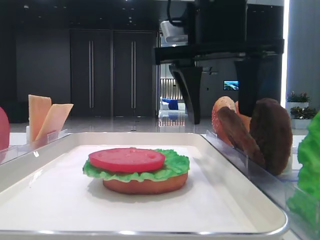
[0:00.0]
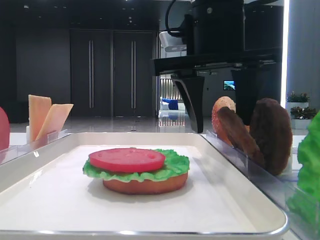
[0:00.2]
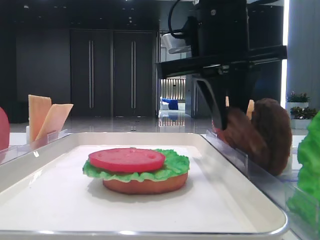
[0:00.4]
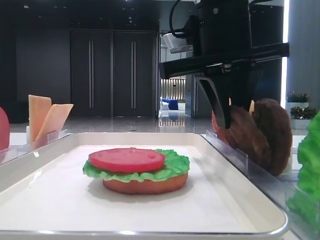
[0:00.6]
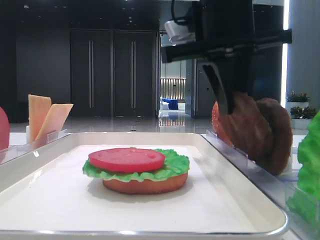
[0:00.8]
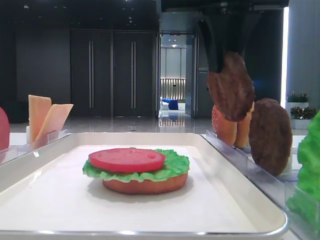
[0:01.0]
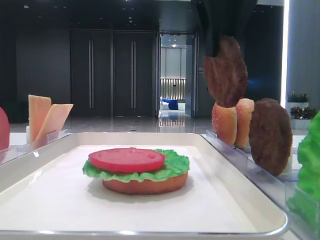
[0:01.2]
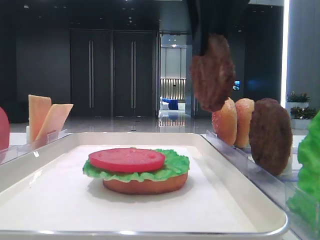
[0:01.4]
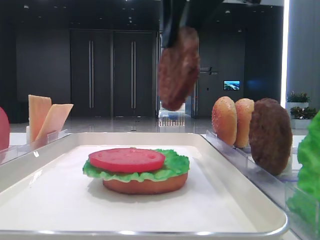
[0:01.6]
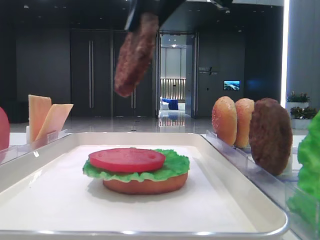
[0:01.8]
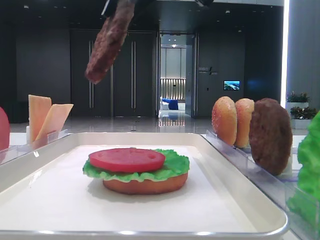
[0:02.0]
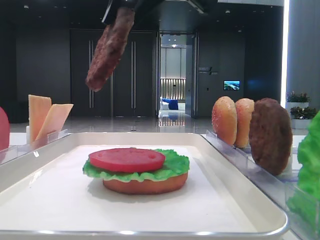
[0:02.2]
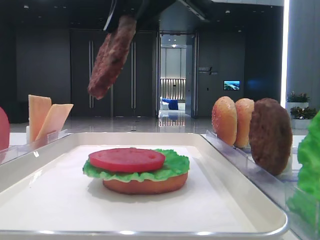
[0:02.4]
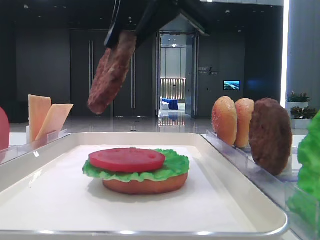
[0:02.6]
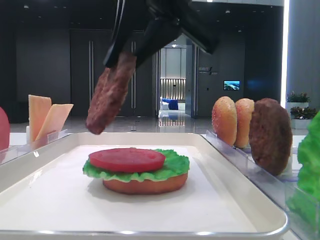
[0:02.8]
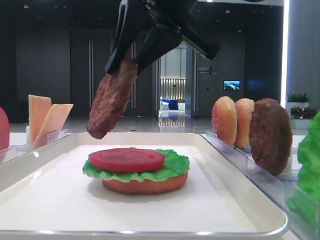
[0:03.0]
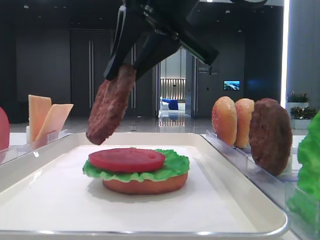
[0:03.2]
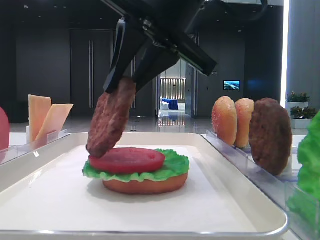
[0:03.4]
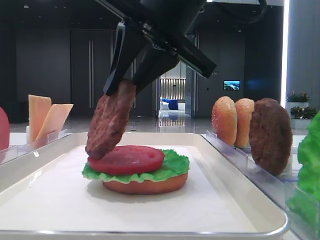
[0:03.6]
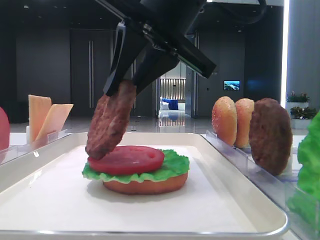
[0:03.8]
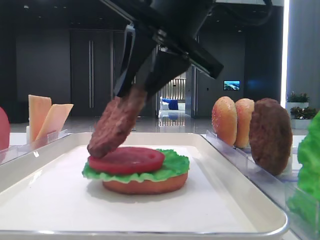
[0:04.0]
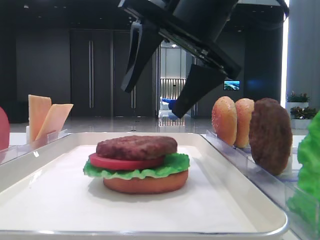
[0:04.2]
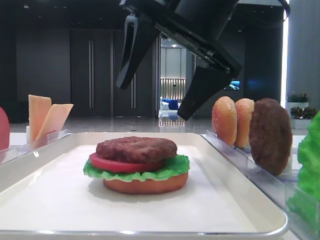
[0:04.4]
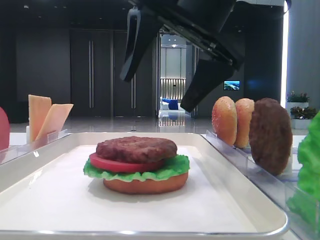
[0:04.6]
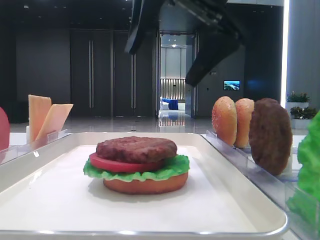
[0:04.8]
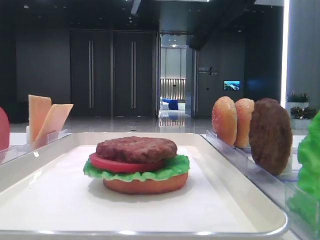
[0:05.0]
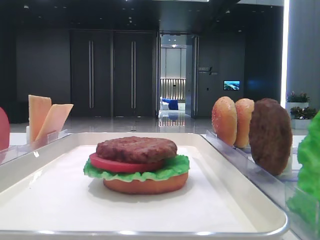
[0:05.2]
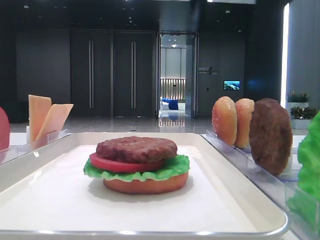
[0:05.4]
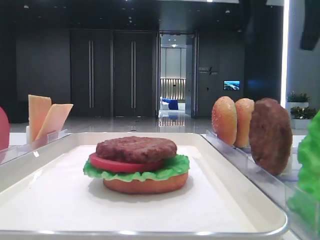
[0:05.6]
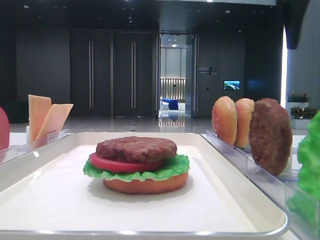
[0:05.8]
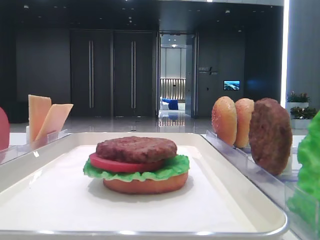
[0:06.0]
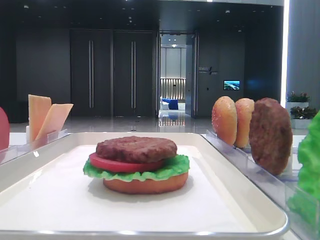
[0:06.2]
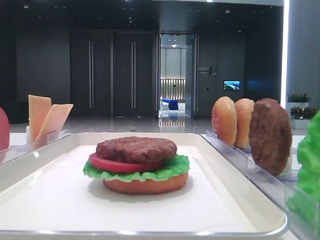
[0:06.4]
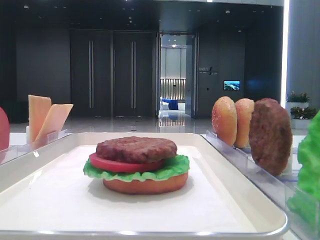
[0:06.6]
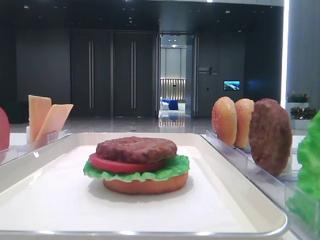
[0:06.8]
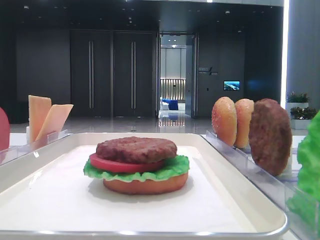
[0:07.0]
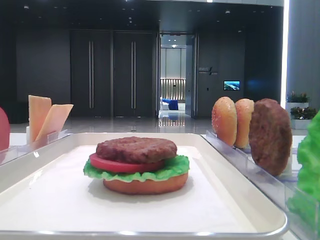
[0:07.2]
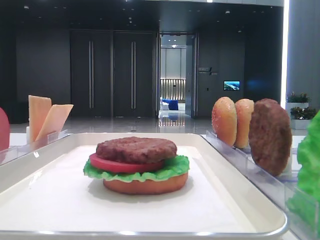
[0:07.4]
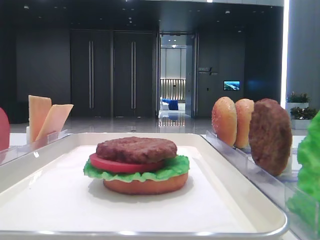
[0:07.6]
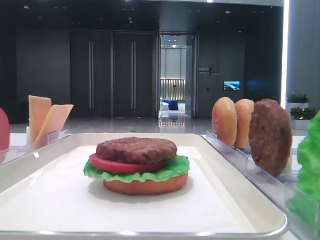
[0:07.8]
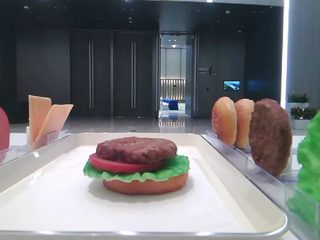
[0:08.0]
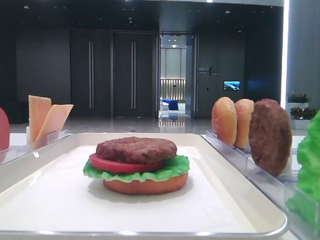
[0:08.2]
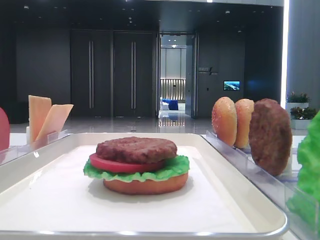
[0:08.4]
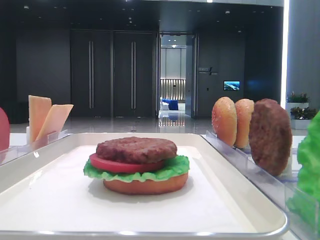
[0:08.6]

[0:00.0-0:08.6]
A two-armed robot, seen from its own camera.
Step, 0:00.6 to 0:04.2: Place the patty on the tomato slice with the right hand.
0:00.0 to 0:01.4: The right gripper travels upward by approximately 5 cm, and closes its fingers.
0:01.4 to 0:02.8: The right gripper ends up some 5 cm from where it was.
0:02.8 to 0:04.4: The right gripper ends up approximately 5 cm from where it was, and opens up.
0:04.4 to 0:05.8: The right gripper is displaced to the right and upward by about 20 cm.
0:05.8 to 0:07.2: The right gripper shifts about 30 cm backward.

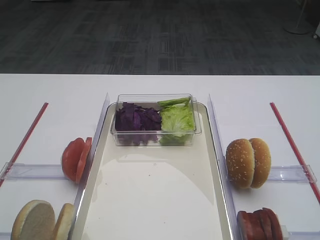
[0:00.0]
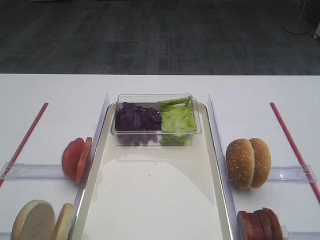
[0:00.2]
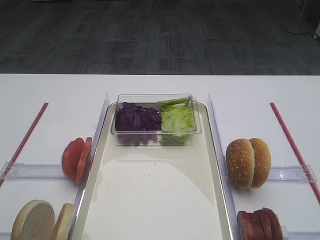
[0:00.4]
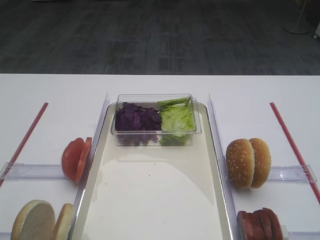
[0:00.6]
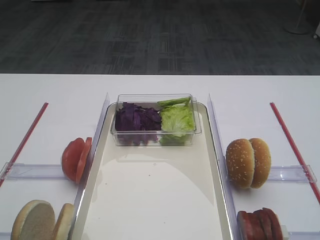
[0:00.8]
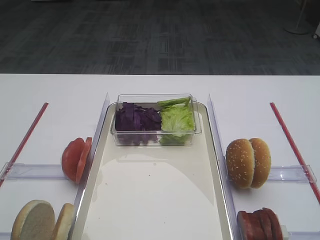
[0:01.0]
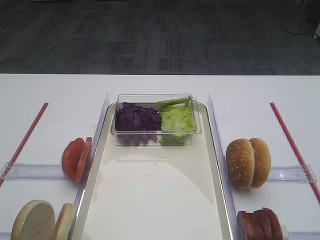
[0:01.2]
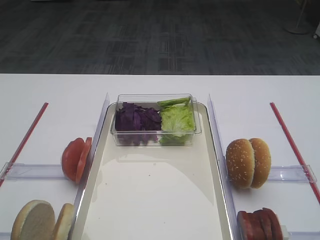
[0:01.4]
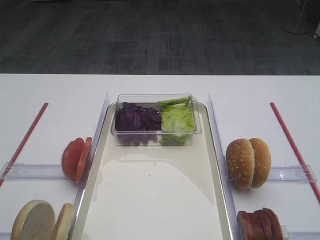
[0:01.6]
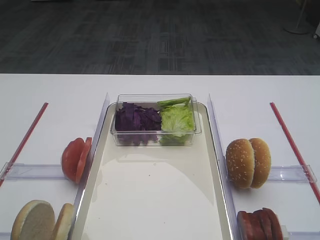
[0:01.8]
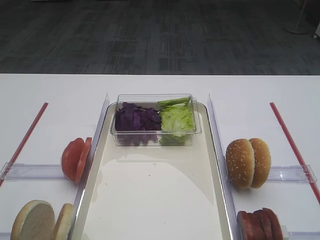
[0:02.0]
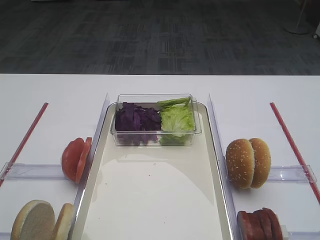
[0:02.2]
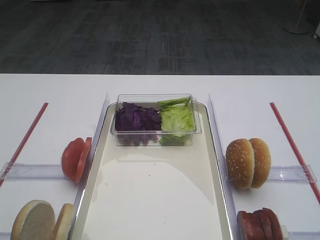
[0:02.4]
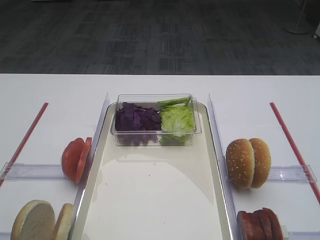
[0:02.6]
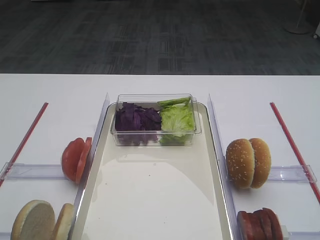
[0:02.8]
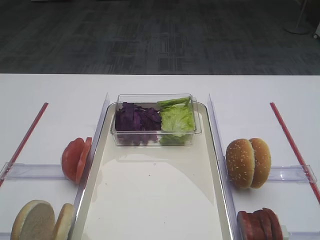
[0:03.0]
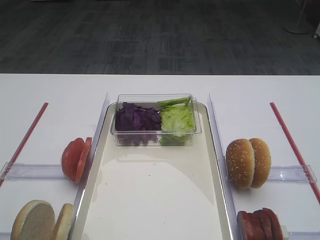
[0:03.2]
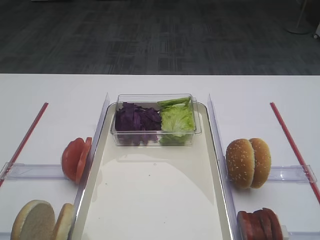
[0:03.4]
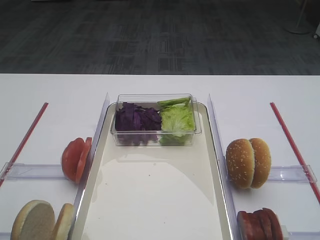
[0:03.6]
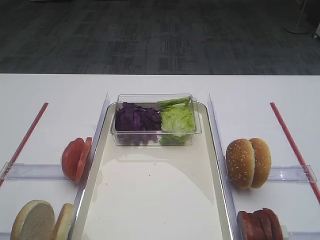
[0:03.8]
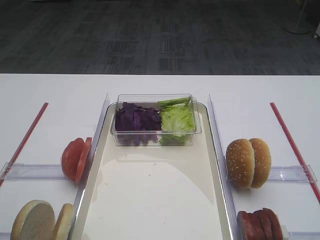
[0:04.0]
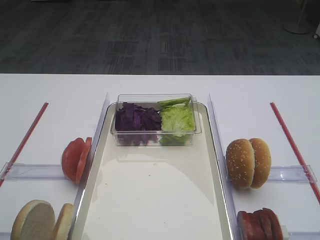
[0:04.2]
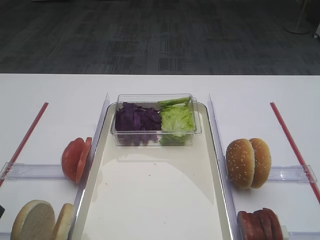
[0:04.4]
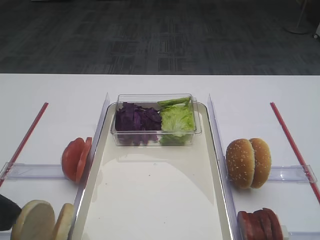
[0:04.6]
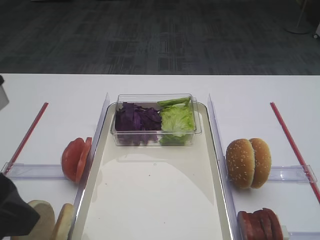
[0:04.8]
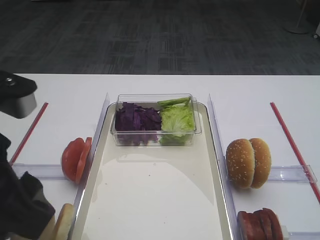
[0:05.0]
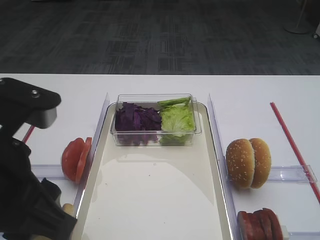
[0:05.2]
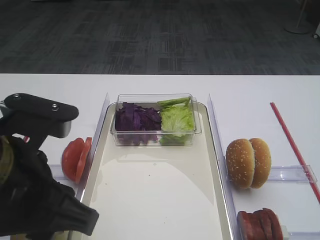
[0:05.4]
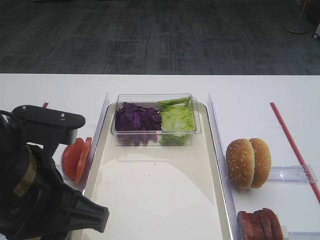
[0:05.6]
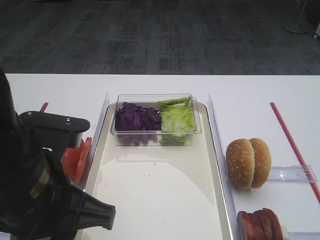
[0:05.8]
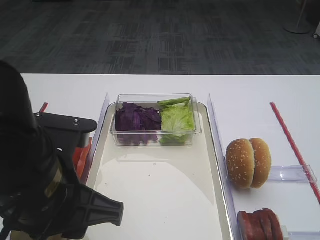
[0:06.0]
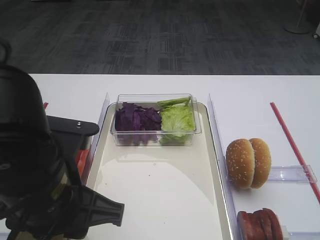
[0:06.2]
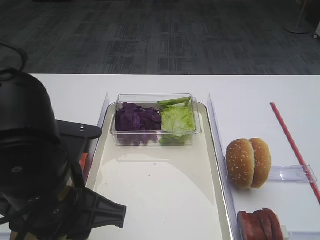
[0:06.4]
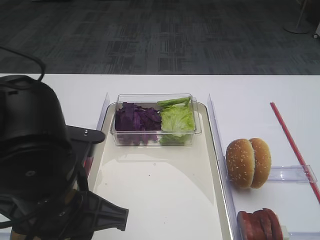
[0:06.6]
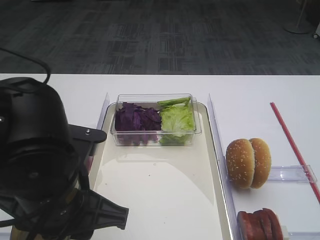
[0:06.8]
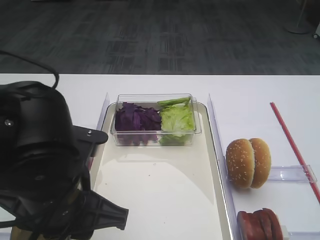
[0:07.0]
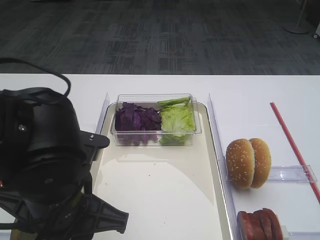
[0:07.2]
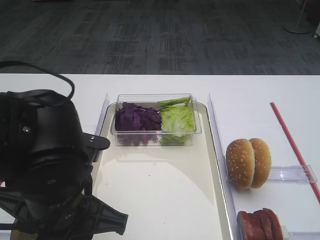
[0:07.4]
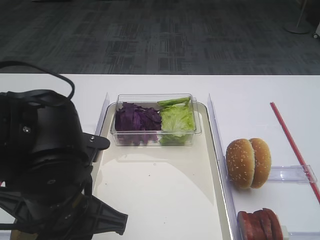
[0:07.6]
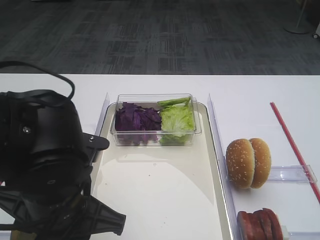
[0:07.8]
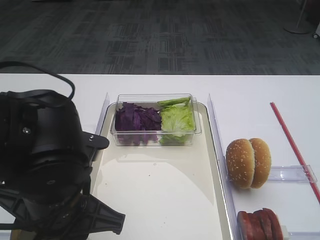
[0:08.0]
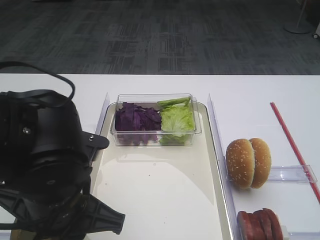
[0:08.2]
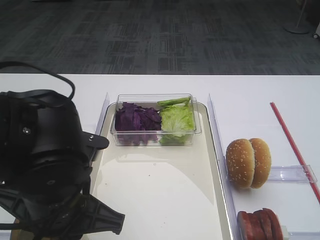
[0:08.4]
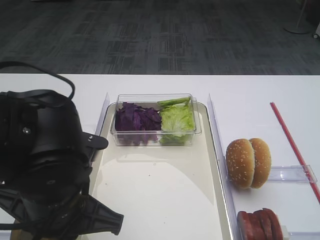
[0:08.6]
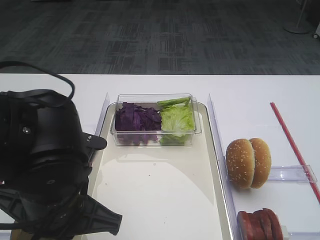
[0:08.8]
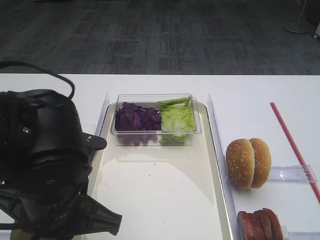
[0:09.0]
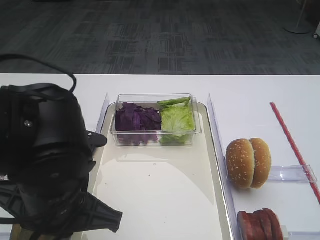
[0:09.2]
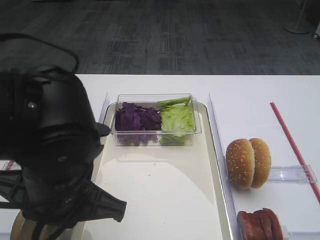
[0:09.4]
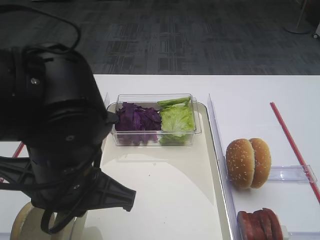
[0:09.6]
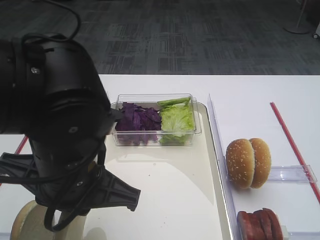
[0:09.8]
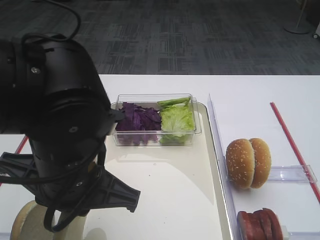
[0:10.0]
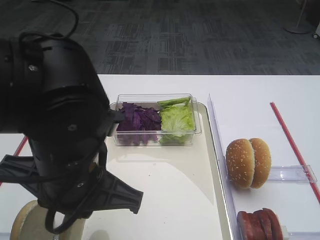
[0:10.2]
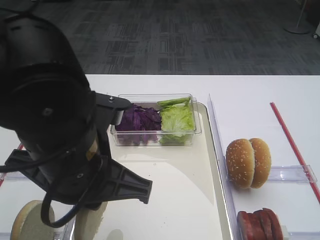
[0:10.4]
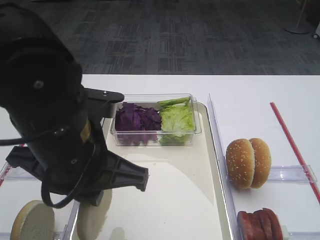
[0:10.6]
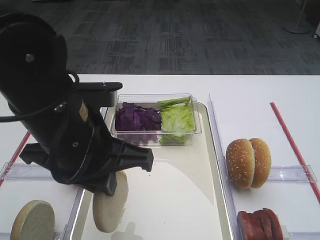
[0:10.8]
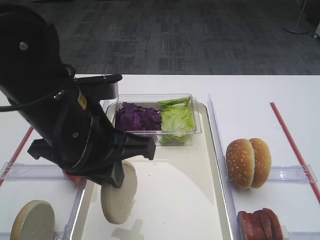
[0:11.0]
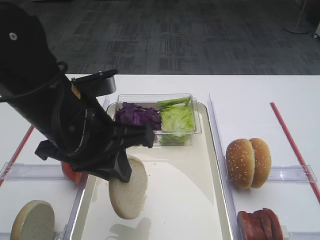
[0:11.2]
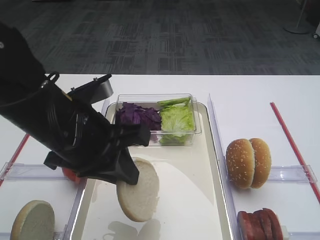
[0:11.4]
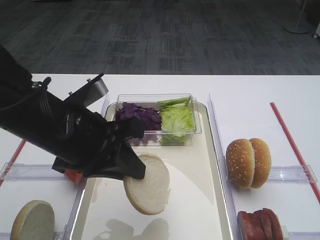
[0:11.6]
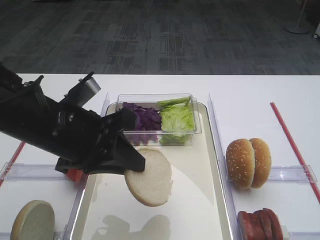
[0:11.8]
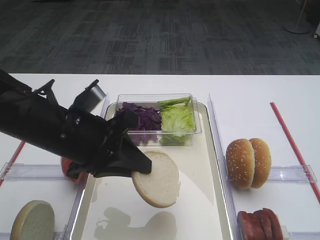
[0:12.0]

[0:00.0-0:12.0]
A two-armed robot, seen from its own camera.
Step, 0:00.0 to 0:09.8: Pick up the bread slice with the left gripper.
0:04.4 to 0:06.0: The left gripper is displaced to the right, downward and forward by about 15 cm.
0:06.0 to 0:07.6: The grippers make only small movements.
0:07.6 to 0:09.0: The left gripper closes its fingers.
0:09.0 to 0:10.4: The left gripper moves upward, approximately 5 cm.
0:10.4 to 0:12.0: The left gripper heads forward, covering some 5 cm.

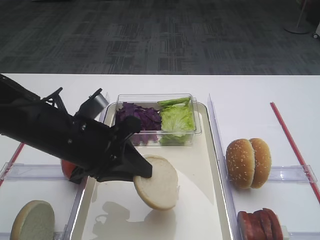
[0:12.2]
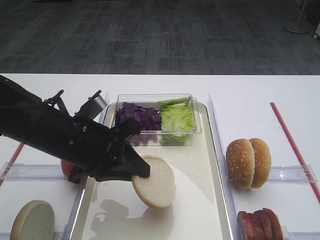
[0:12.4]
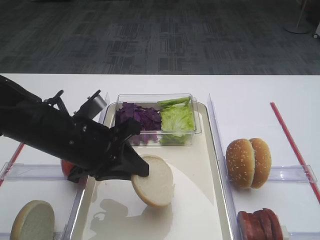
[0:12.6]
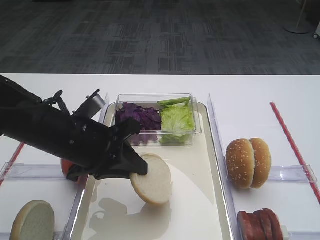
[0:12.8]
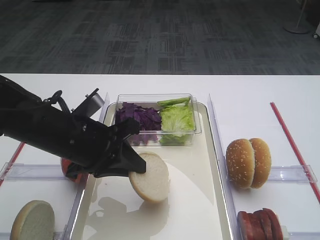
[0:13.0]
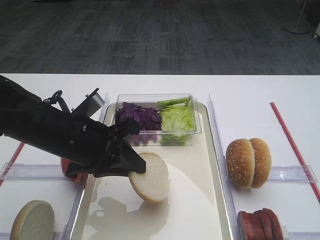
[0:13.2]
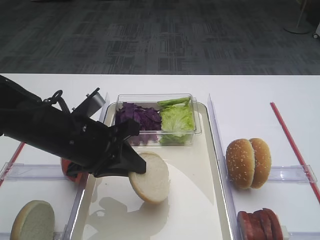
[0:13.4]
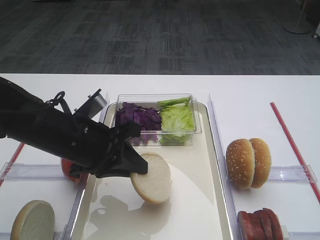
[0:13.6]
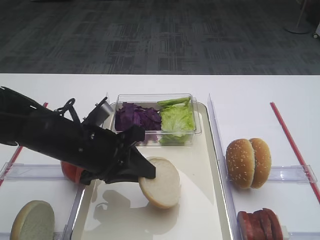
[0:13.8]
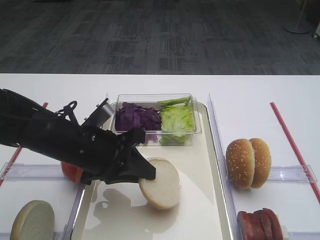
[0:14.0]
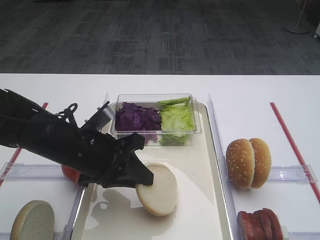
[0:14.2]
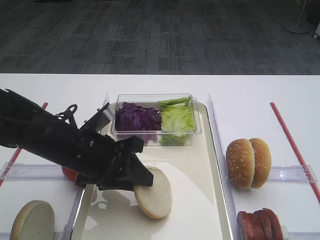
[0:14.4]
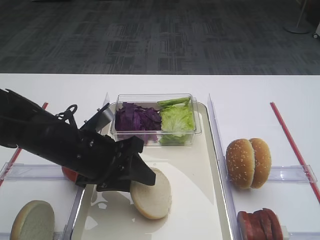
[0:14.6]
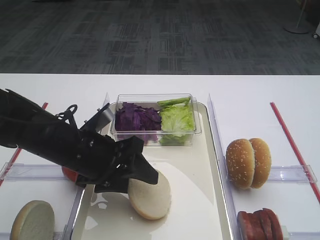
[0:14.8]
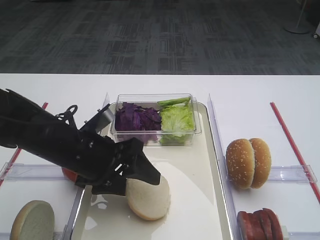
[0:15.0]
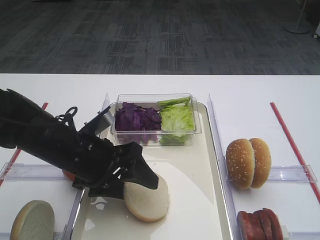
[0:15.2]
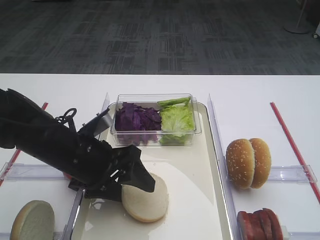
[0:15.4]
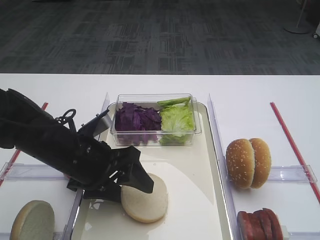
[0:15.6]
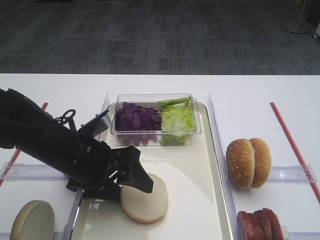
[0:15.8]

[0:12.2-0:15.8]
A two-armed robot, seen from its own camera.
0:12.2 to 0:14.0: The grippers move only a little.
0:14.0 to 0:15.8: The left gripper opens its fingers.
